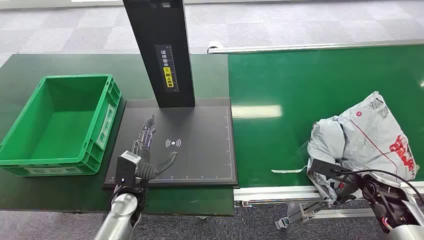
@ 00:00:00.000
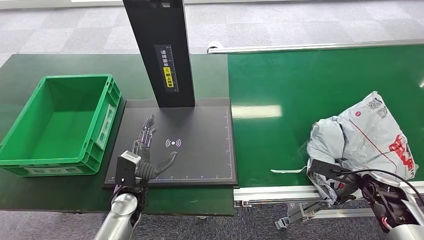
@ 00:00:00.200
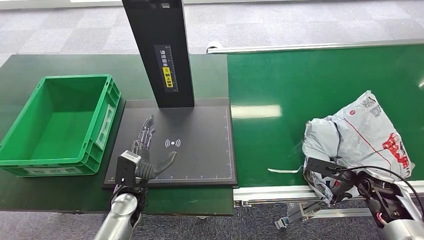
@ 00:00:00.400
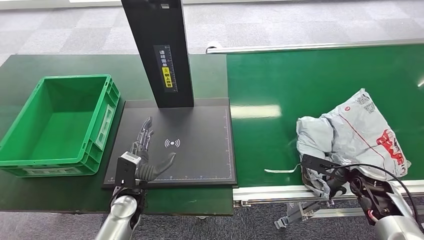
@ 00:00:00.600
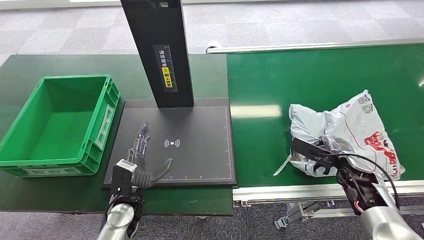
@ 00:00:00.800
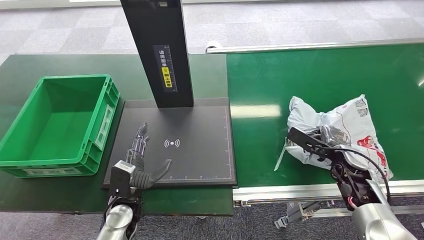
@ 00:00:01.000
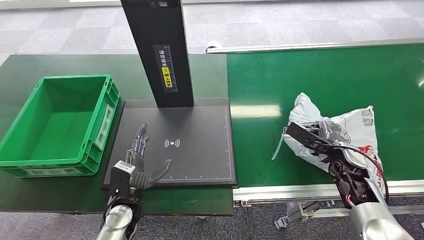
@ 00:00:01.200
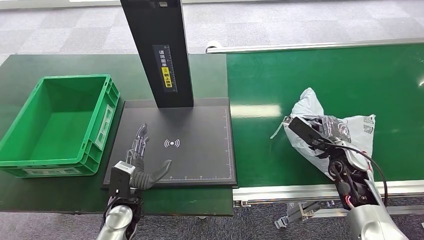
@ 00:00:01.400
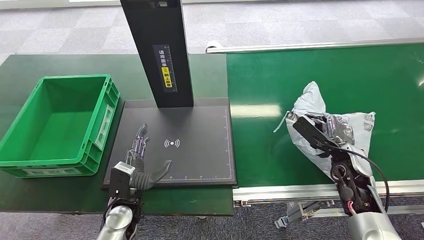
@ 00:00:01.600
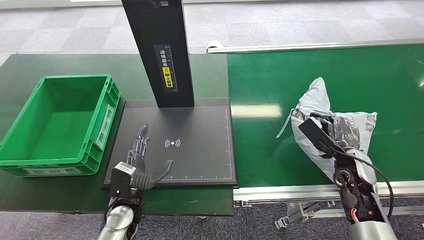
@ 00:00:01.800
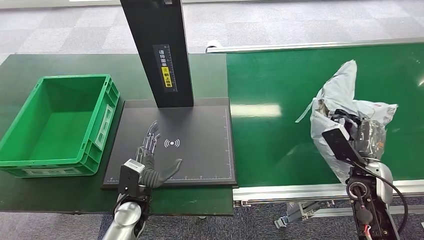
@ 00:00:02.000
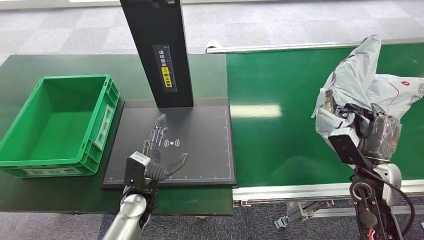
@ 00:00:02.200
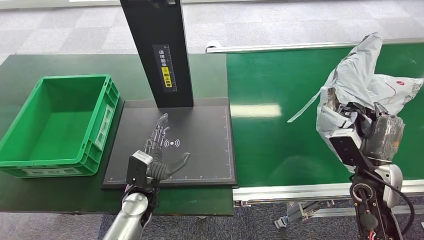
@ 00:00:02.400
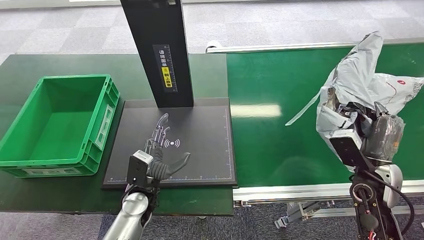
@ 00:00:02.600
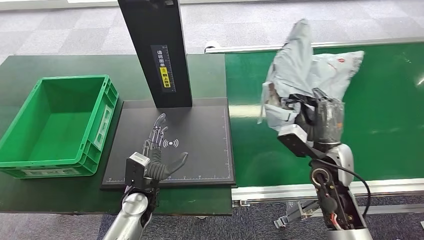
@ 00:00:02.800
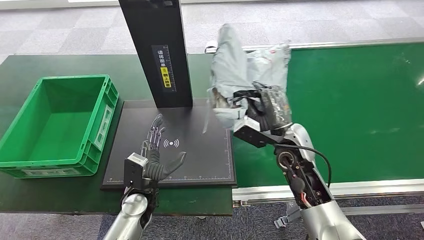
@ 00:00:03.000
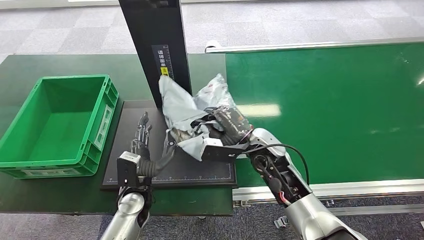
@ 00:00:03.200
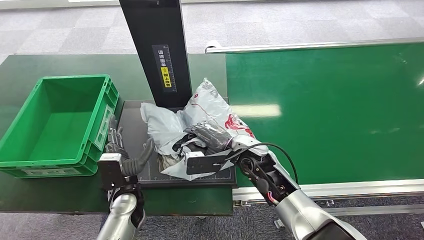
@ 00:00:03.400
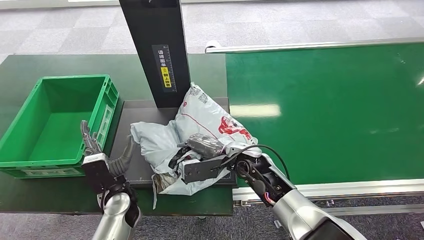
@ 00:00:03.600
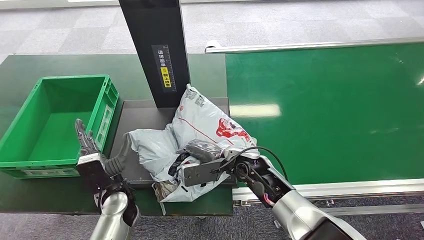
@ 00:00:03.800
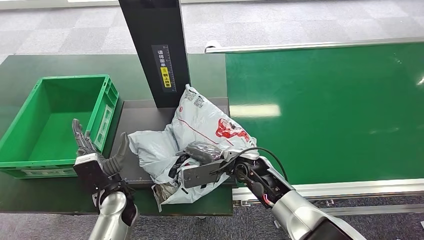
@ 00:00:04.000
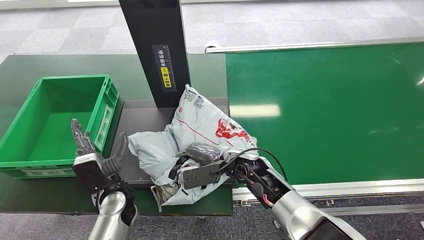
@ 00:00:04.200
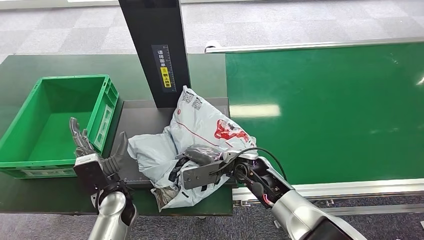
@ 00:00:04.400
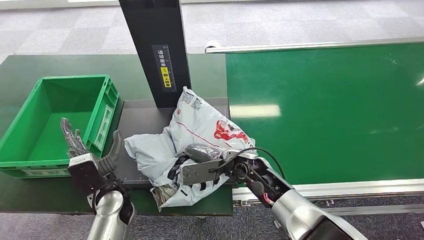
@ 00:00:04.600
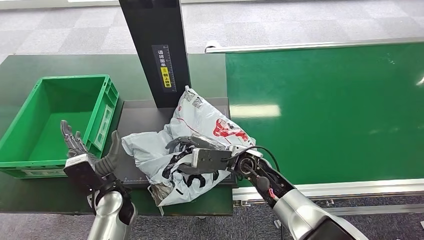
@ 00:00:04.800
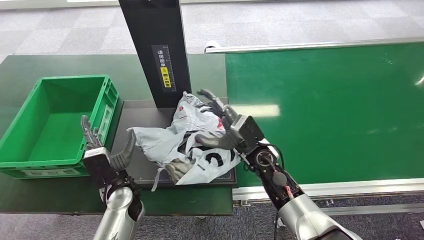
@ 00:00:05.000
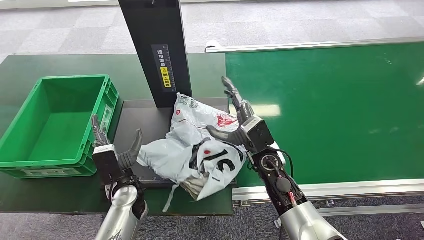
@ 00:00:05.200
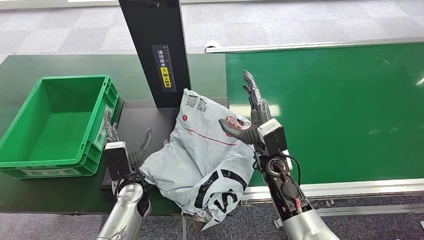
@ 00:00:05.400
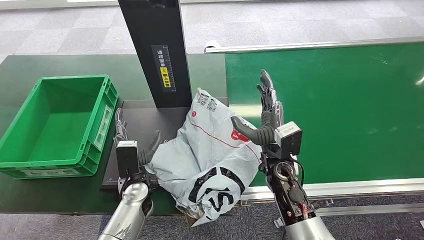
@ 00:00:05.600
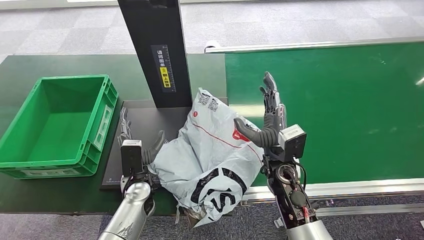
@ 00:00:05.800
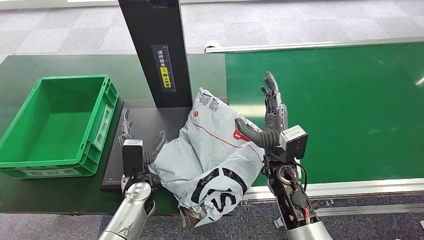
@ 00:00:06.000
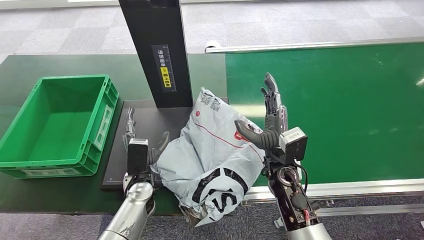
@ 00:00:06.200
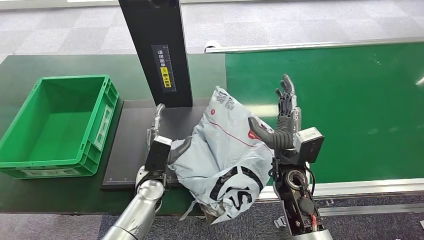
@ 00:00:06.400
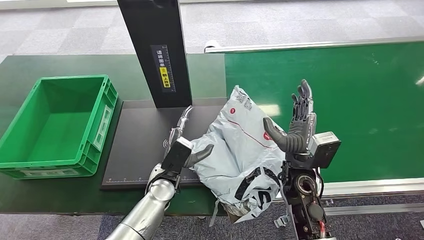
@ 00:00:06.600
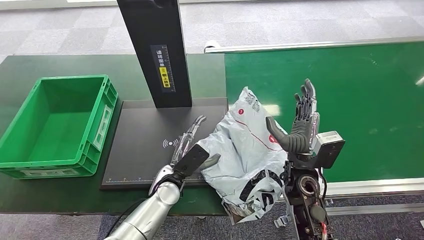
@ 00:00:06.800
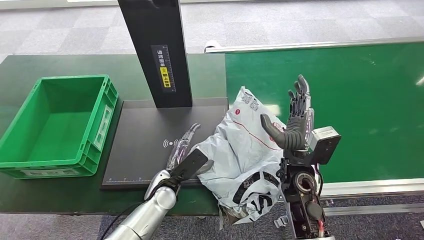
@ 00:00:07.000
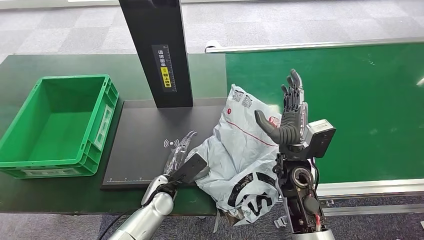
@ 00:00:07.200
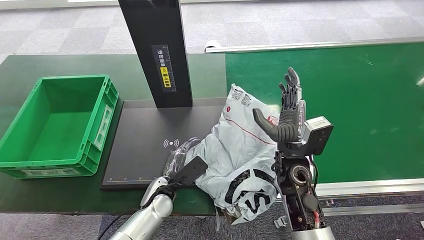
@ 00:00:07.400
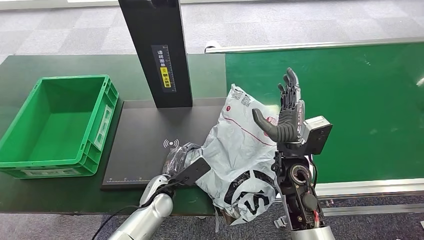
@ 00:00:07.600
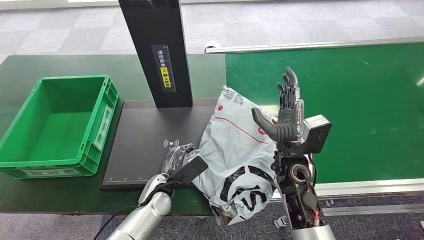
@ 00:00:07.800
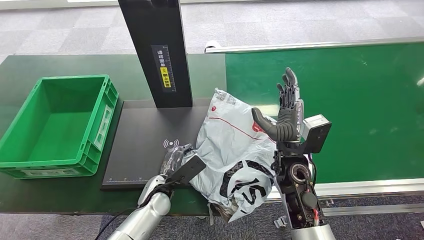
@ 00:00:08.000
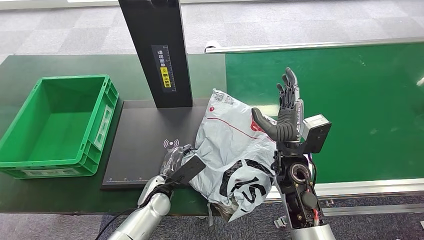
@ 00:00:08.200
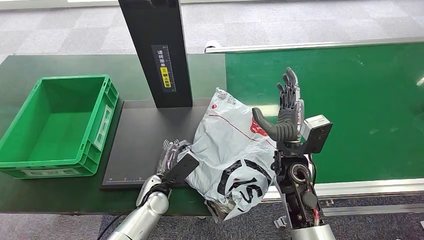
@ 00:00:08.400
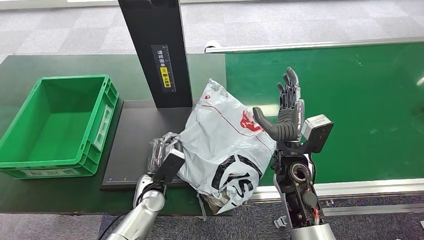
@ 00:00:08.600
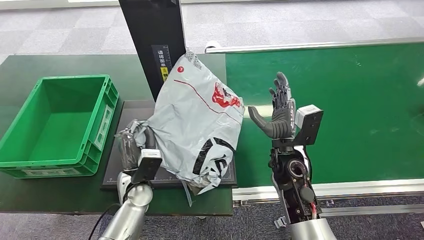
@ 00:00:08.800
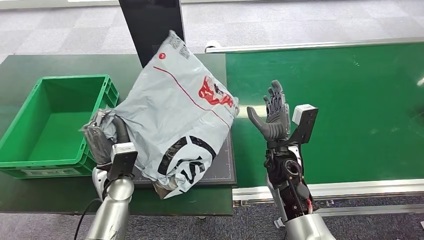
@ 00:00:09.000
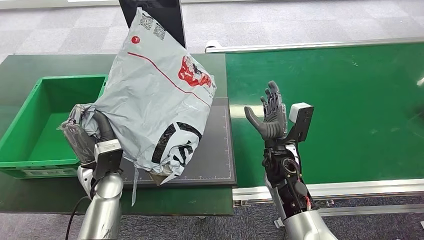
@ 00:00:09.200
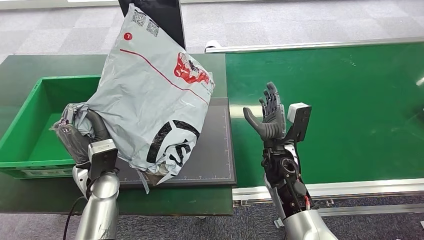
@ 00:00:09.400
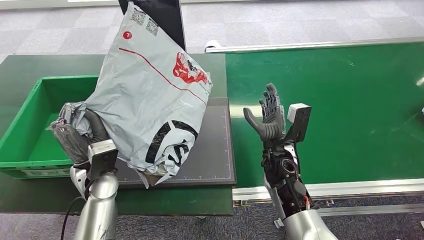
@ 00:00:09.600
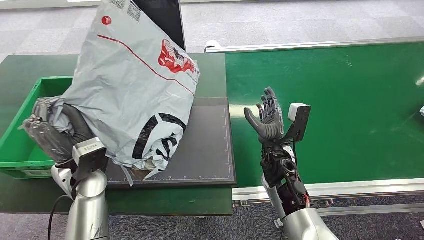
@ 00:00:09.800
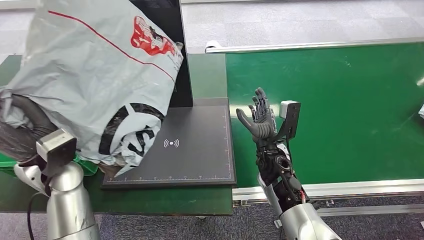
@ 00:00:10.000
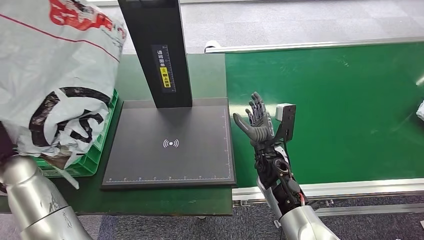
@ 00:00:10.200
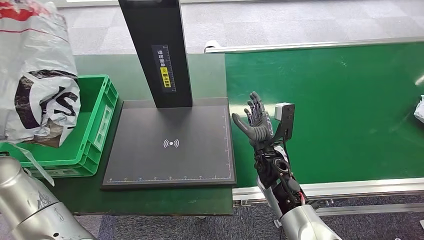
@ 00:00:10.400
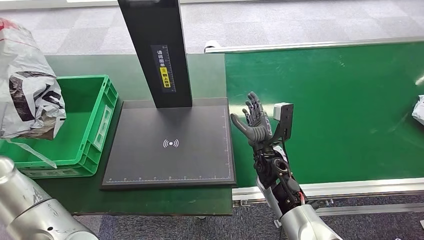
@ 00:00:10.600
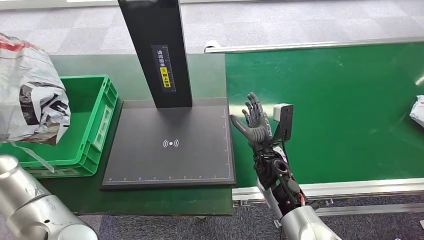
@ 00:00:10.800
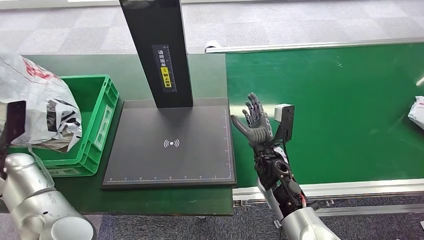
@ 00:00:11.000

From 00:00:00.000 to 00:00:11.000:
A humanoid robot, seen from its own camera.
Step, from 00:00:00.000 to 00:00:02.600: Pick up the package from the conveyor belt.
Step, from 00:00:02.800 to 00:00:06.000: Place the package onto the inbound machine.
Step, from 00:00:06.200 to 00:00:10.600: Pick up the package from the inbound machine.
From 00:00:03.200 to 00:00:04.800: The right hand moves roughly 5 cm. The left hand shifts by approximately 5 cm.
From 00:00:04.800 to 00:00:06.200: Both hands travel together to the right, approximately 5 cm.

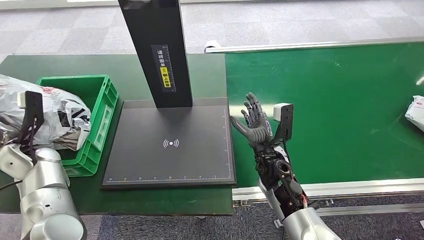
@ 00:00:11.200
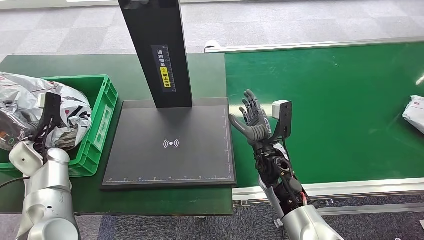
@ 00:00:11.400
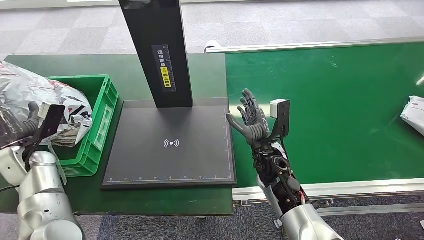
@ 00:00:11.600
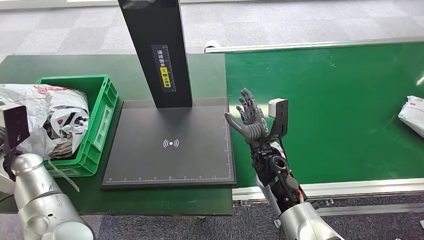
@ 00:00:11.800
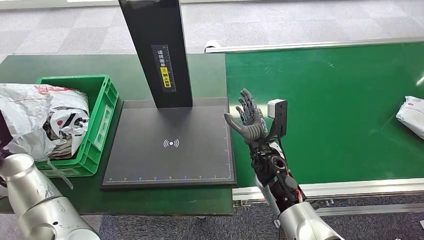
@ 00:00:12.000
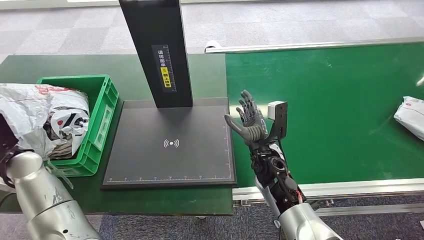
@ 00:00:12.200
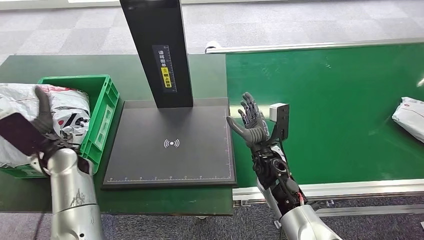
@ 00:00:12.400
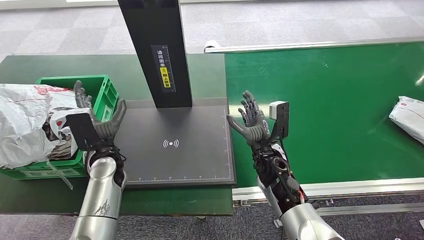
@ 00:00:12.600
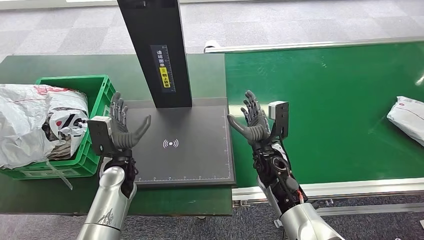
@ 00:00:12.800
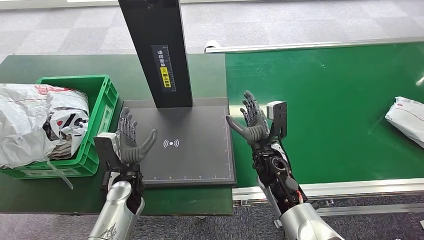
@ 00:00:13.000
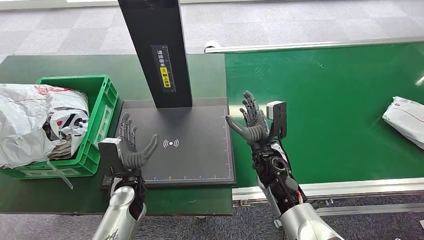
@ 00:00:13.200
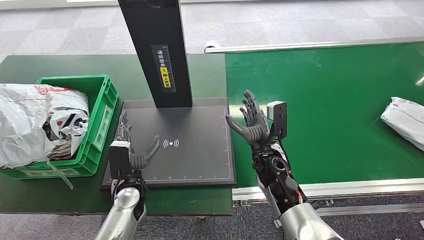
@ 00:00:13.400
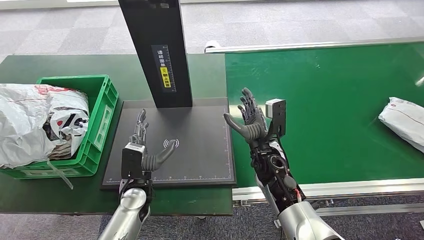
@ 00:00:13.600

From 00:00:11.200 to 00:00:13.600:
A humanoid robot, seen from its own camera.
Step, from 00:00:11.200 to 00:00:13.400: Place the package into the parcel locker.
From 00:00:11.200 to 00:00:12.400: The left hand heads to the right, covering about 10 cm.
From 00:00:12.400 to 00:00:13.600: The left hand travels to the right and downward by about 20 cm.
